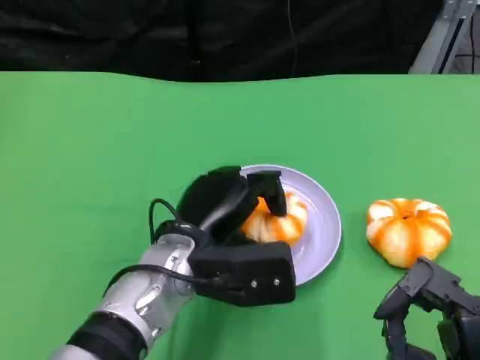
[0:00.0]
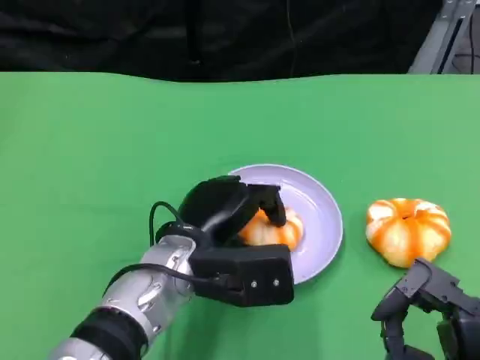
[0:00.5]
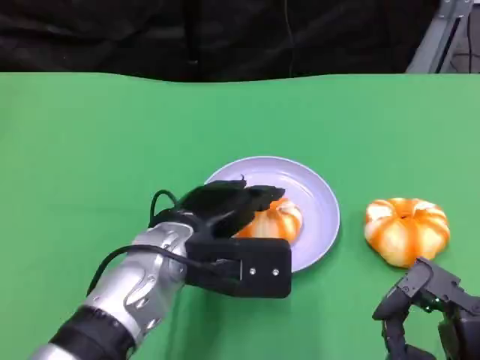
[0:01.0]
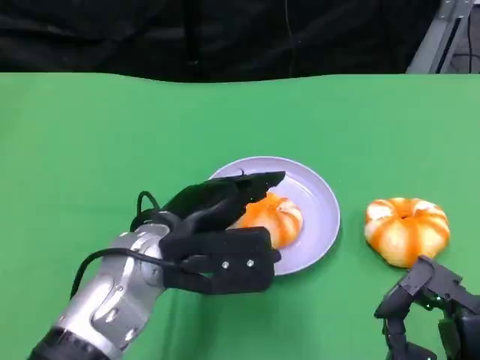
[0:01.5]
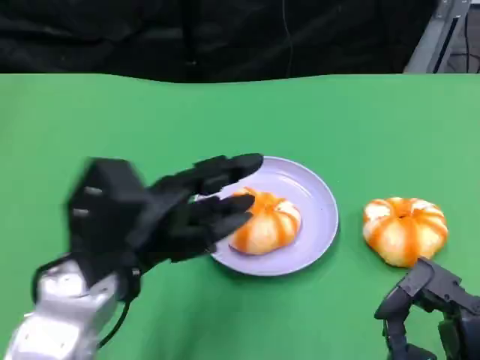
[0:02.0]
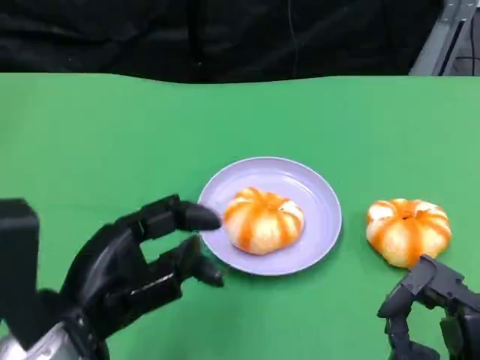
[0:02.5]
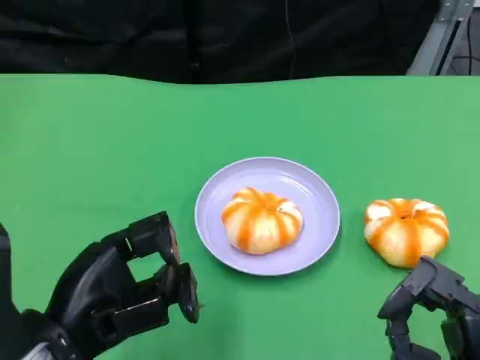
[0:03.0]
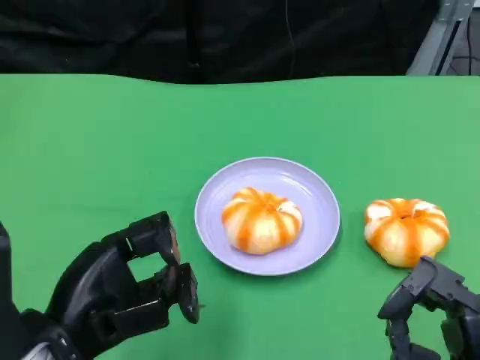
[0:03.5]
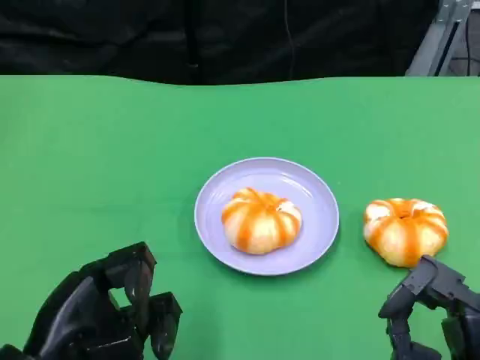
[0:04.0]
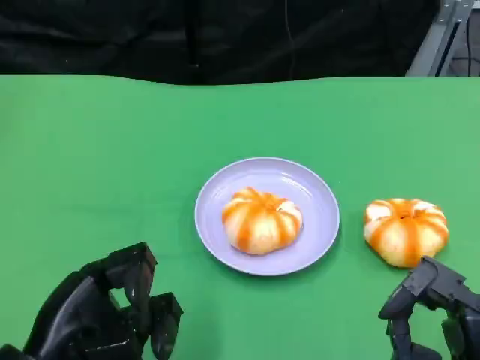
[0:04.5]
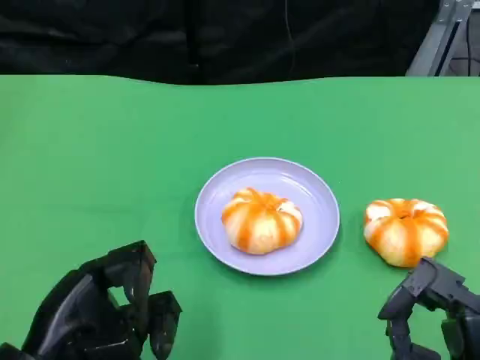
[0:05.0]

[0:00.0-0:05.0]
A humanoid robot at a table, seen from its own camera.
Task of the whole recording: Grasp the bread from the table and place it into the plate.
0:00.0 to 0:02.5: The left hand goes some 15 cm to the left and backward.
0:02.5 to 0:05.0: The hands move only a little.

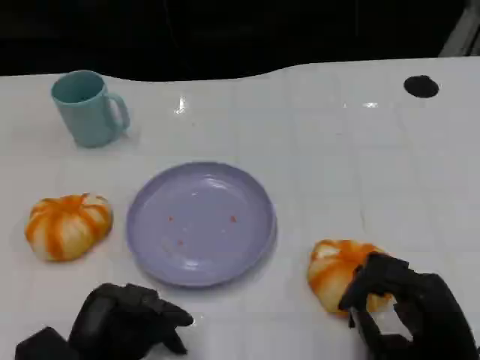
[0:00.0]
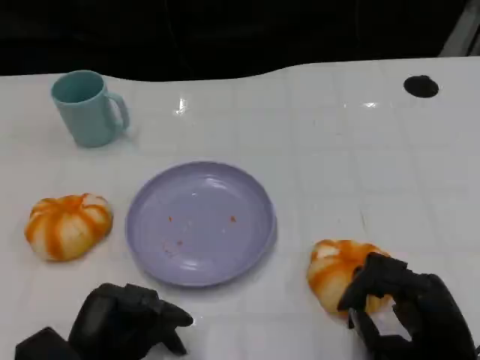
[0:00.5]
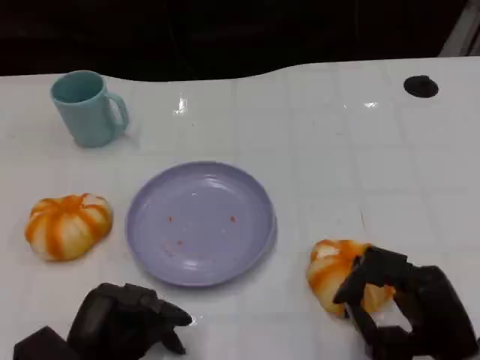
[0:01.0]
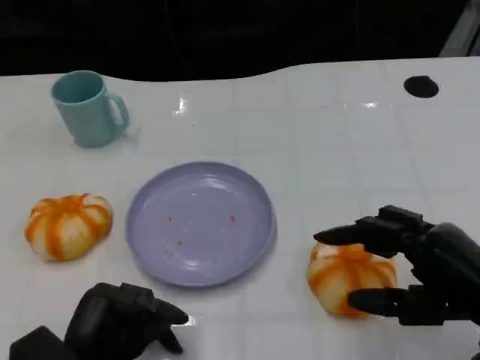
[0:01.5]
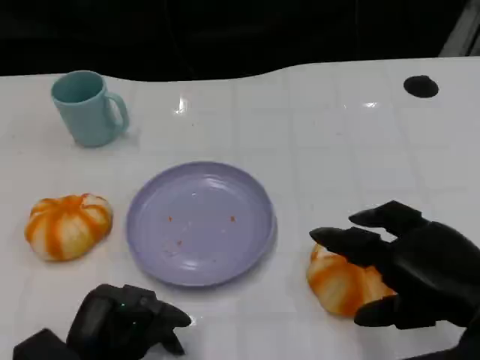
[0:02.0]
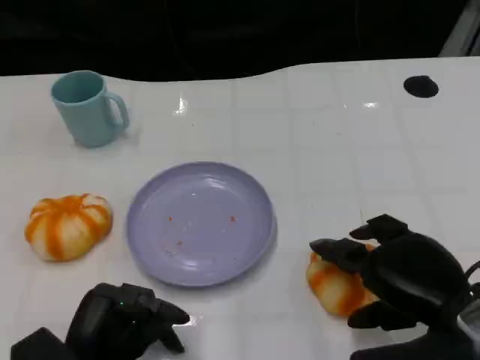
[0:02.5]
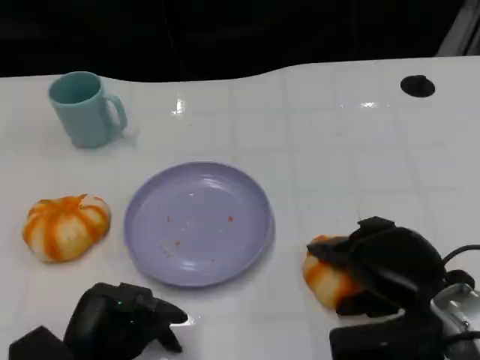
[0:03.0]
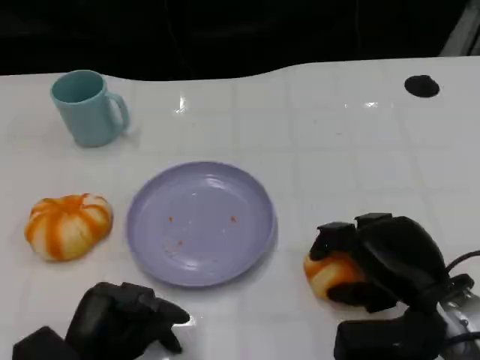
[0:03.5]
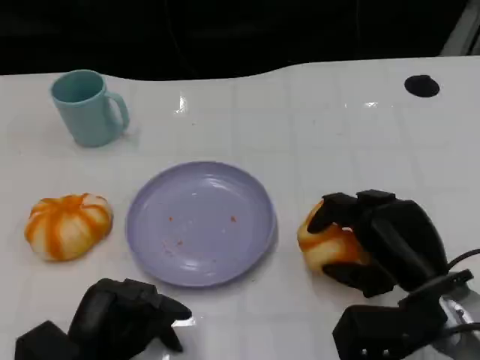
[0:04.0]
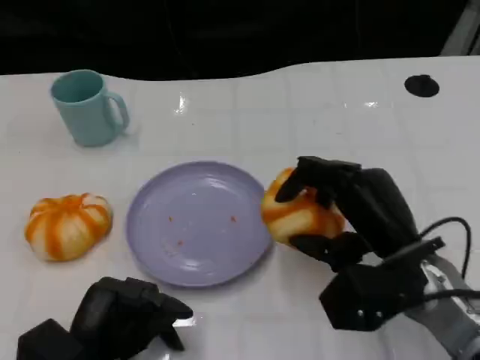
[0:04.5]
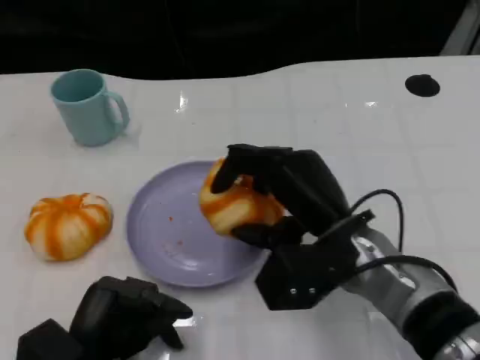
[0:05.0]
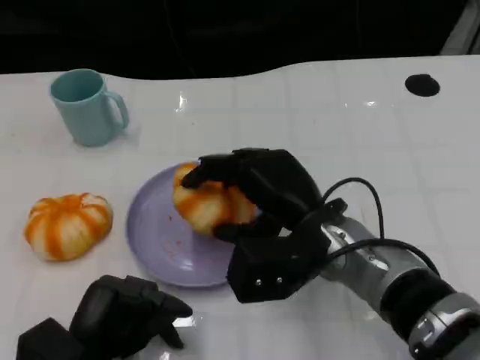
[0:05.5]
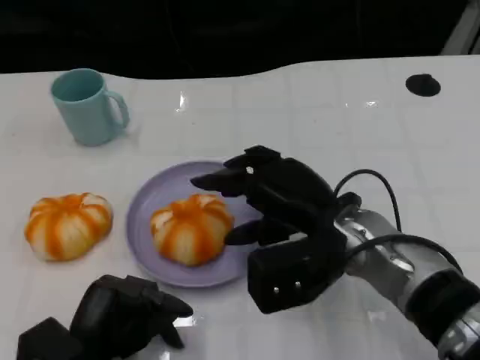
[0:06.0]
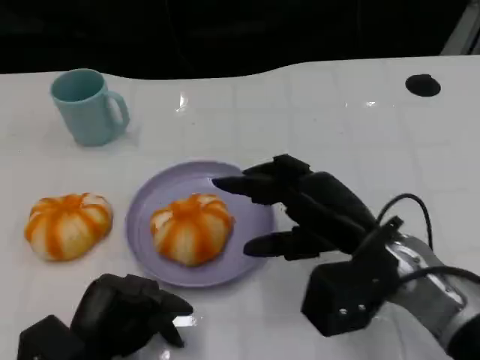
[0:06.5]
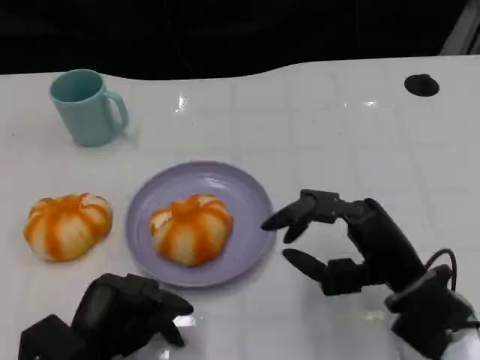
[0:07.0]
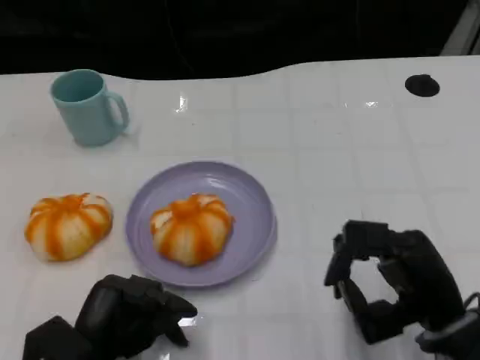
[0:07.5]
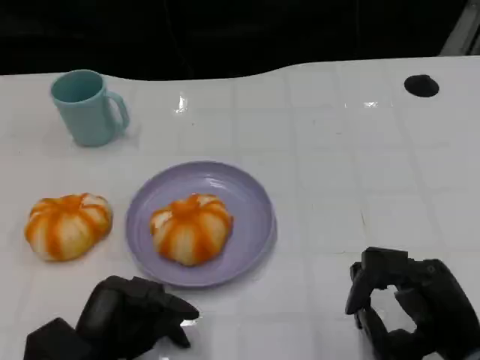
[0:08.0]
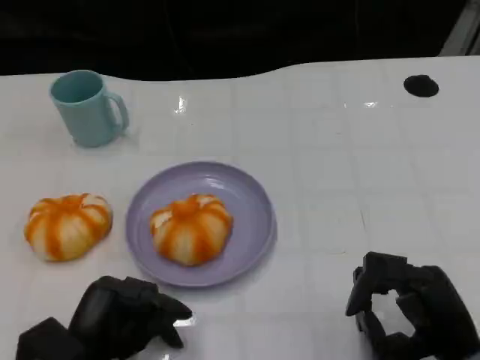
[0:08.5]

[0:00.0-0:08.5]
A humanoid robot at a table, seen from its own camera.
Task of the whole recording: Grasp the bread from the table and place it into the plate.
0:00.0 to 0:02.0: The right hand heads upward, covering about 10 cm.
0:02.0 to 0:04.0: The right hand shifts roughly 10 cm downward and forward.
0:06.5 to 0:08.5: The right hand is displaced backward, to the right and downward by about 15 cm.

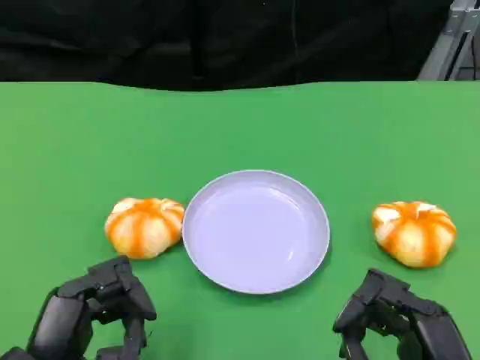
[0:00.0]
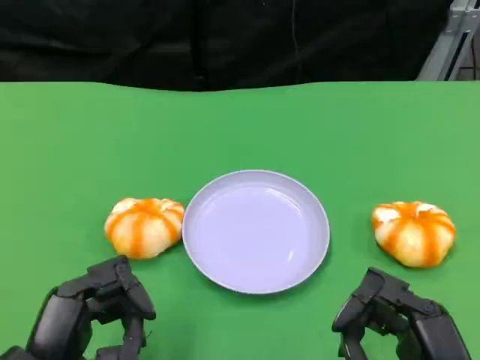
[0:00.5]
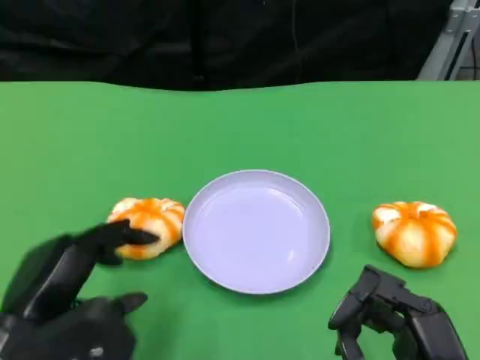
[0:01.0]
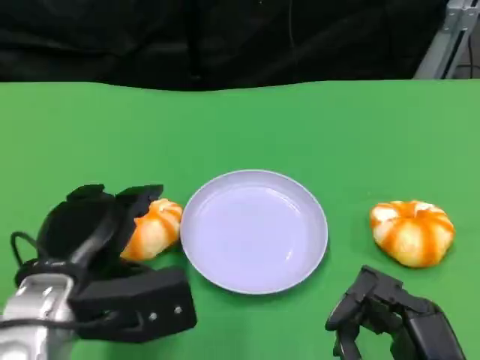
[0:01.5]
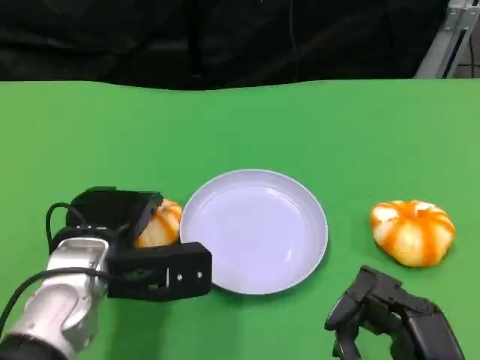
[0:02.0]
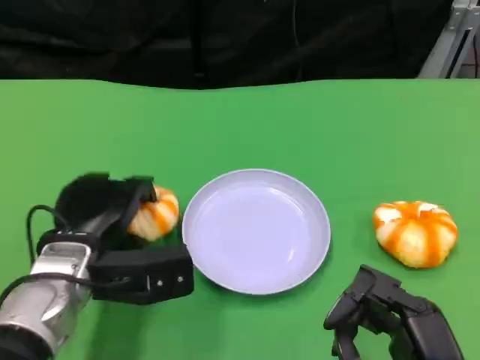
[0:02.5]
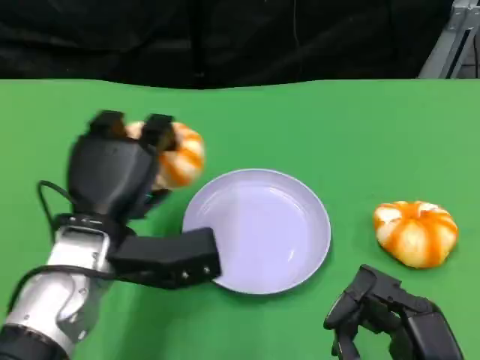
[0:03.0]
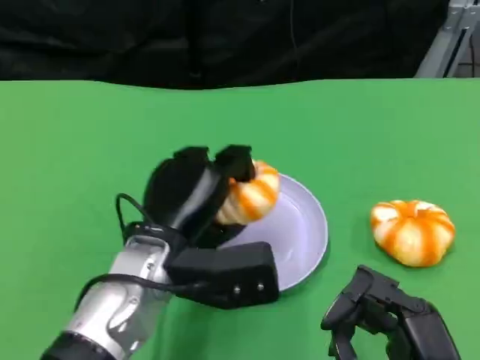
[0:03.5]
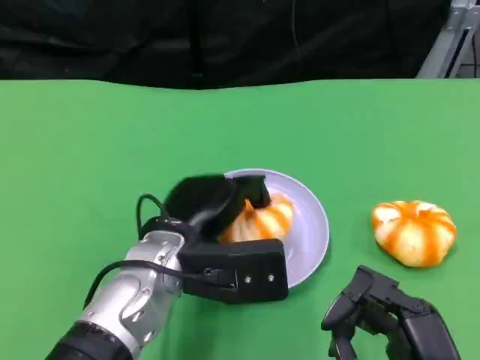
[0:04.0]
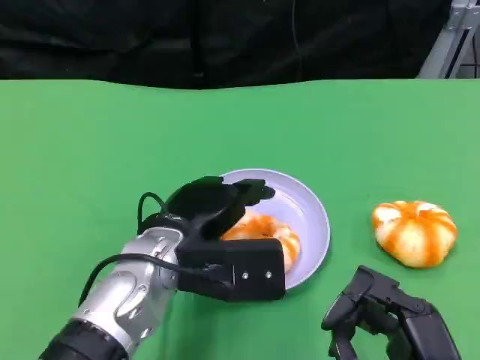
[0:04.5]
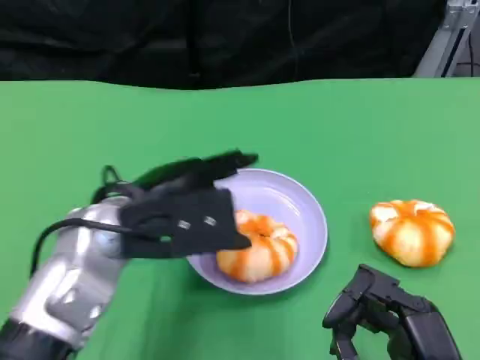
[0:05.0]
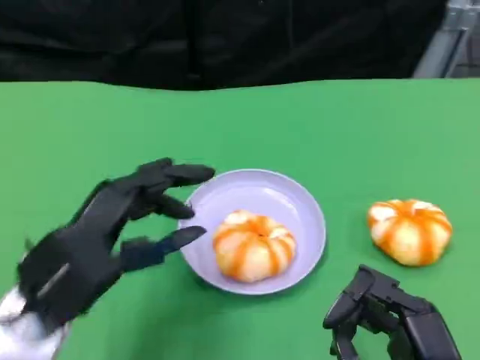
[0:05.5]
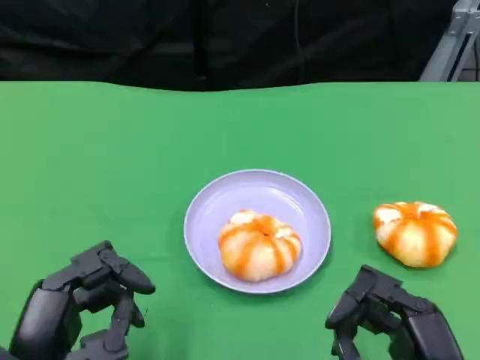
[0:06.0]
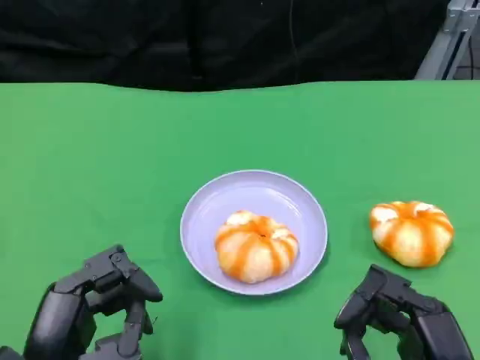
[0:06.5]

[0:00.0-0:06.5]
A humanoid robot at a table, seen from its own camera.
Task of the whole recording: Grasp the bread from the table and place it into the plate.
0:00.0 to 0:02.0: The left hand shifts some 15 cm forward.
0:02.0 to 0:04.5: The left hand heads to the right, covering roughly 5 cm.
0:04.5 to 0:06.5: The left hand travels backward and to the left by roughly 15 cm.

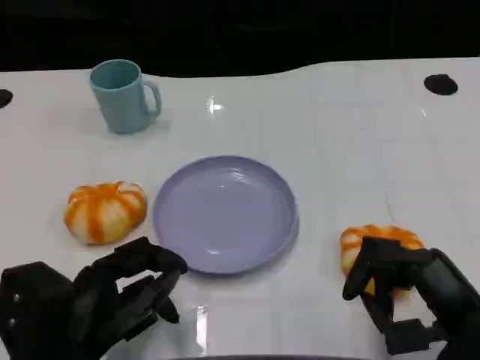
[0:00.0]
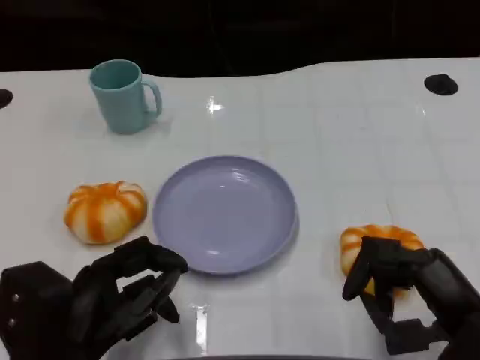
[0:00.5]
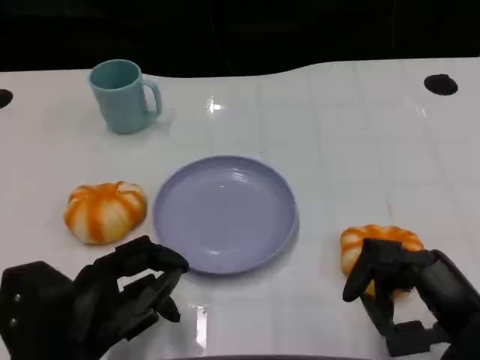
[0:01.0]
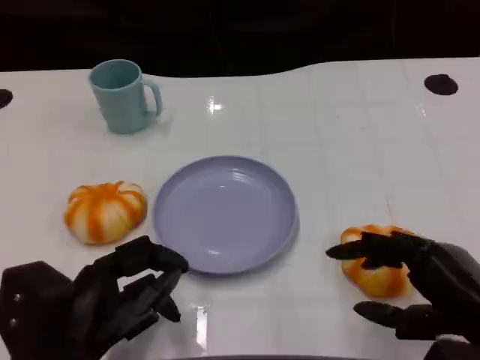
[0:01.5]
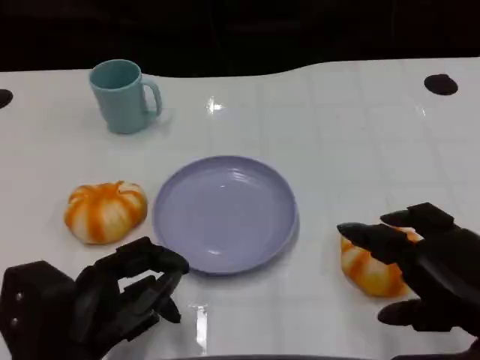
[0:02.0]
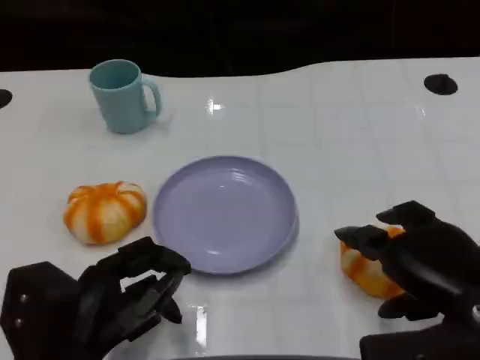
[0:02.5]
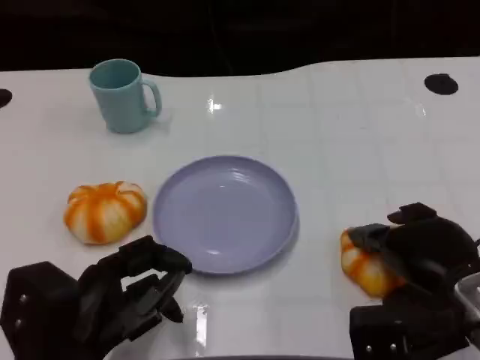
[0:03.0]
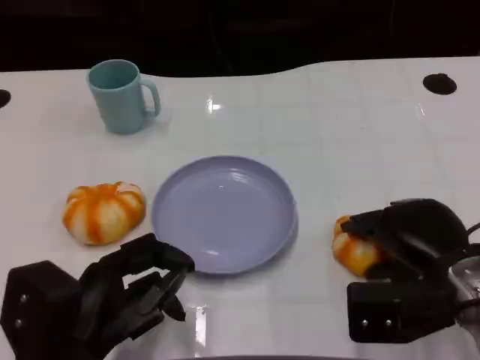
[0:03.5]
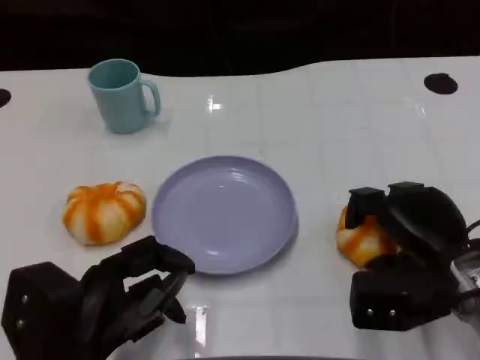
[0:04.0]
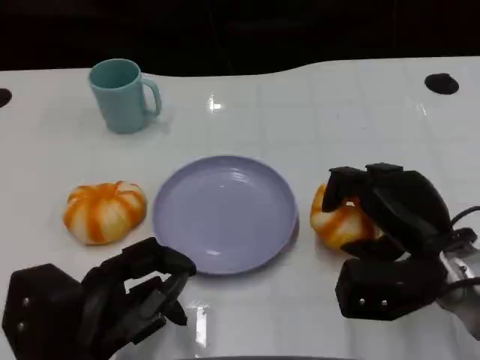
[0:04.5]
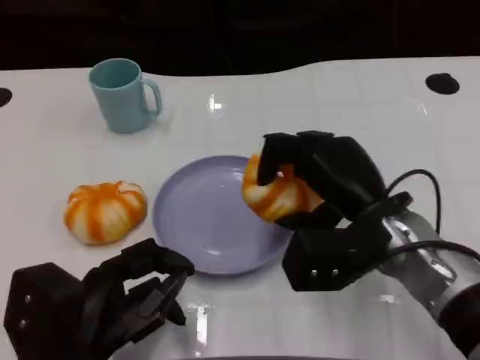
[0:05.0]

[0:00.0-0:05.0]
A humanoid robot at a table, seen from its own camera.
Task of the whole recording: Grasp the bread from the table and place it into the plate.
0:02.5 to 0:05.0: The right hand goes about 10 cm to the left and forward.
